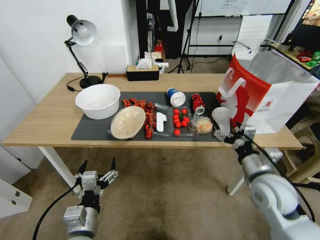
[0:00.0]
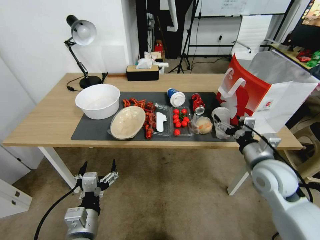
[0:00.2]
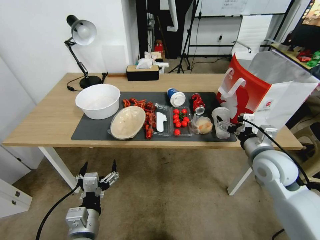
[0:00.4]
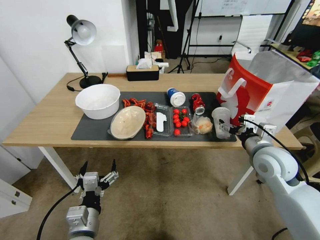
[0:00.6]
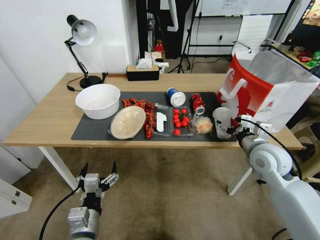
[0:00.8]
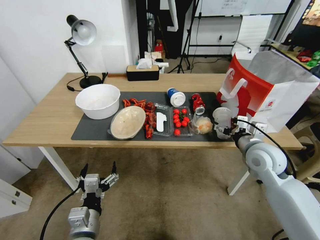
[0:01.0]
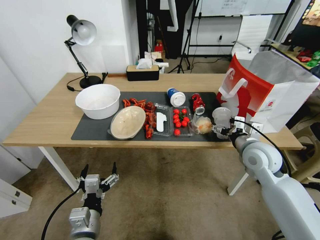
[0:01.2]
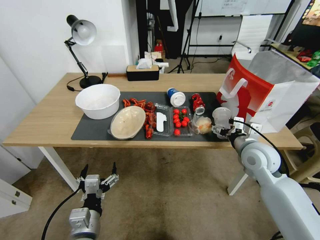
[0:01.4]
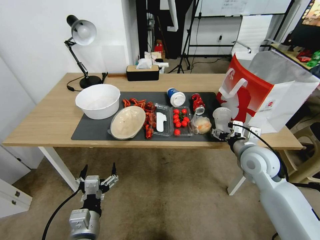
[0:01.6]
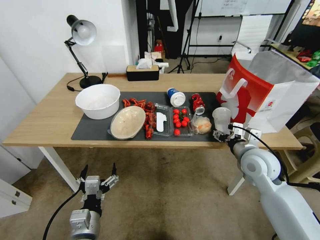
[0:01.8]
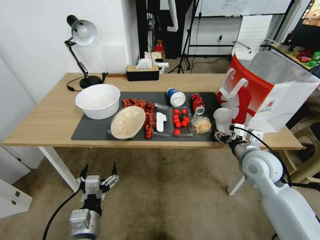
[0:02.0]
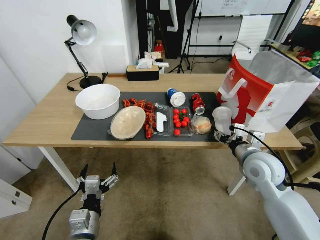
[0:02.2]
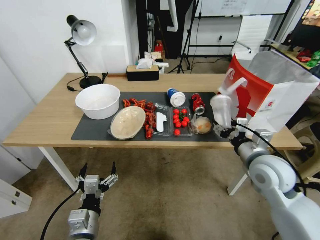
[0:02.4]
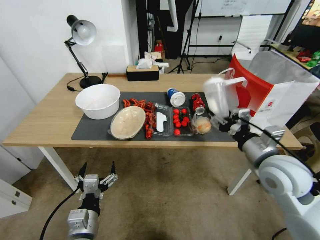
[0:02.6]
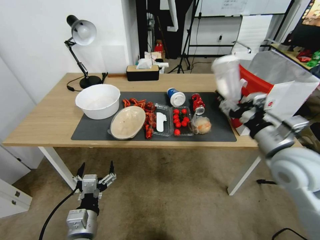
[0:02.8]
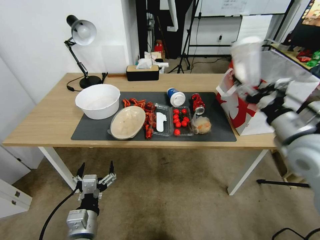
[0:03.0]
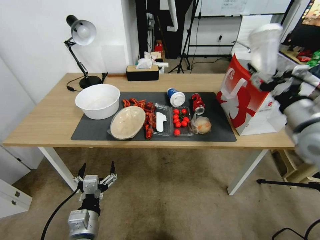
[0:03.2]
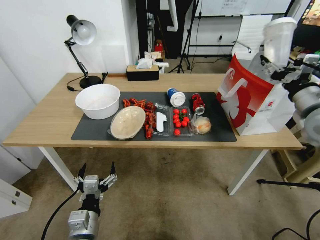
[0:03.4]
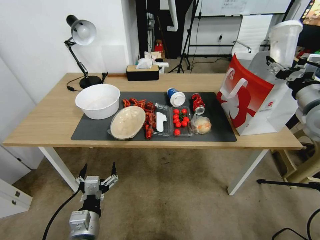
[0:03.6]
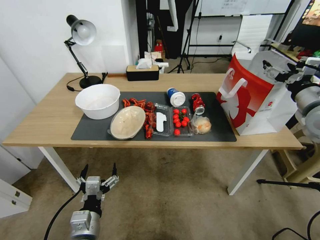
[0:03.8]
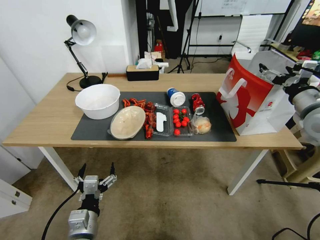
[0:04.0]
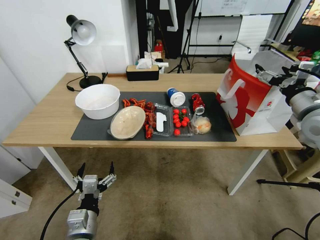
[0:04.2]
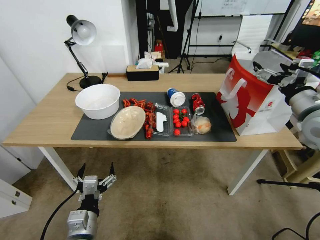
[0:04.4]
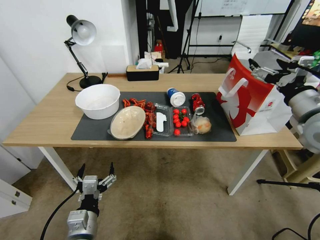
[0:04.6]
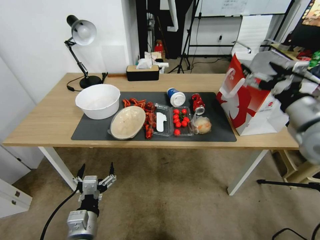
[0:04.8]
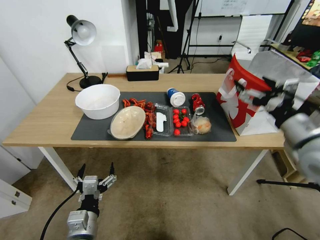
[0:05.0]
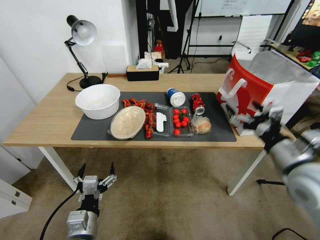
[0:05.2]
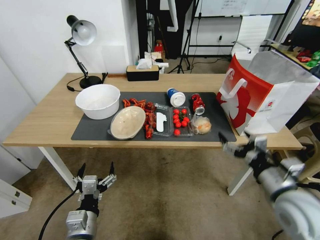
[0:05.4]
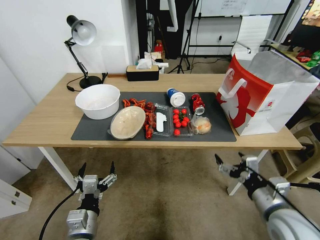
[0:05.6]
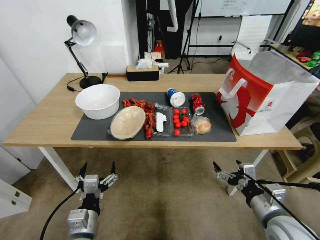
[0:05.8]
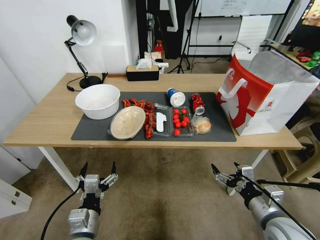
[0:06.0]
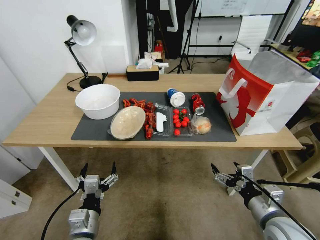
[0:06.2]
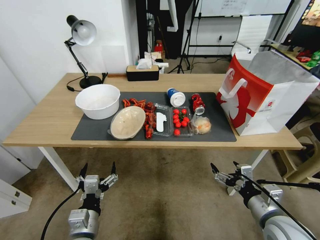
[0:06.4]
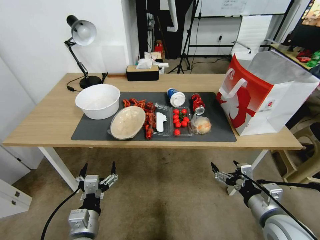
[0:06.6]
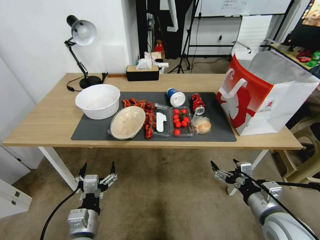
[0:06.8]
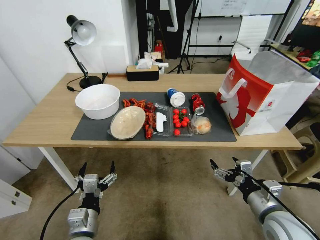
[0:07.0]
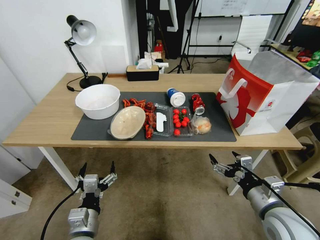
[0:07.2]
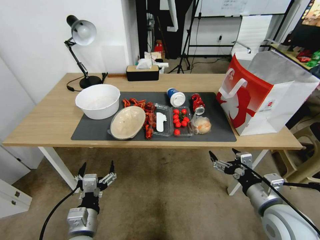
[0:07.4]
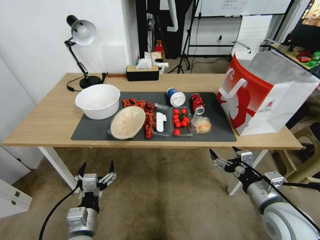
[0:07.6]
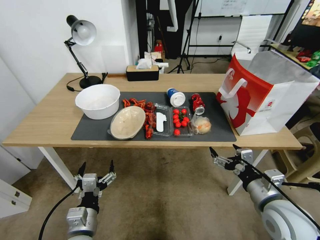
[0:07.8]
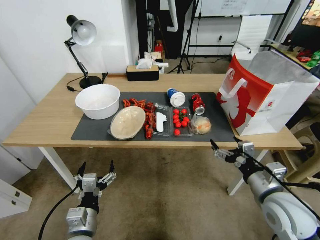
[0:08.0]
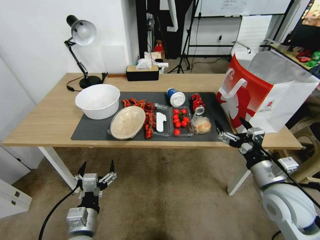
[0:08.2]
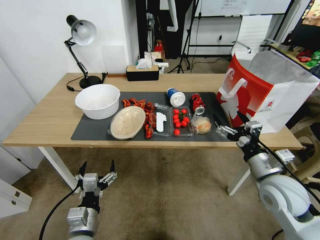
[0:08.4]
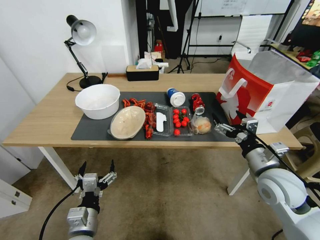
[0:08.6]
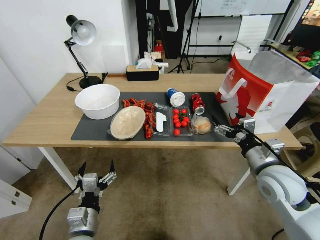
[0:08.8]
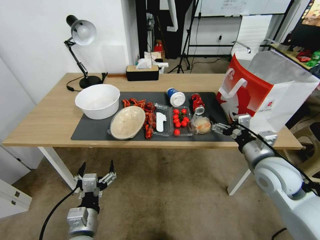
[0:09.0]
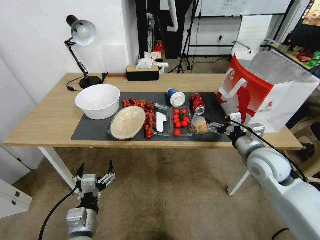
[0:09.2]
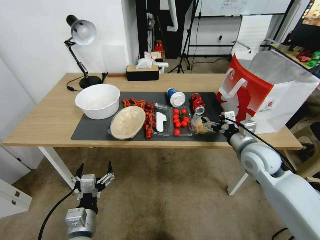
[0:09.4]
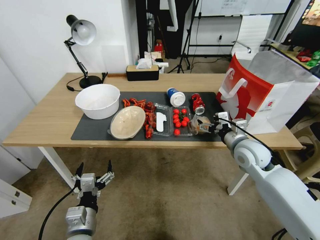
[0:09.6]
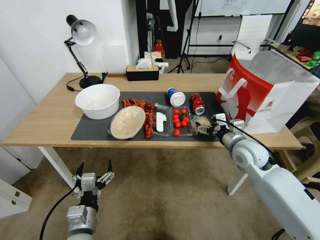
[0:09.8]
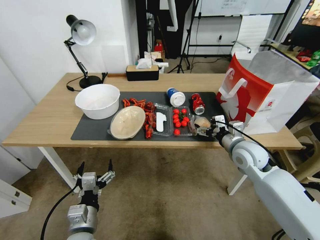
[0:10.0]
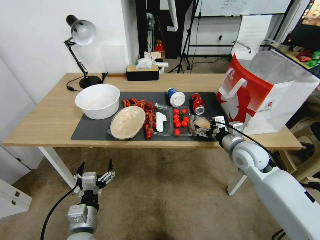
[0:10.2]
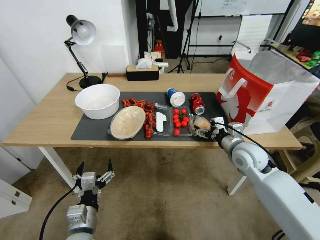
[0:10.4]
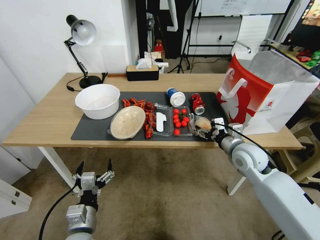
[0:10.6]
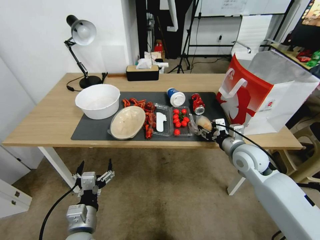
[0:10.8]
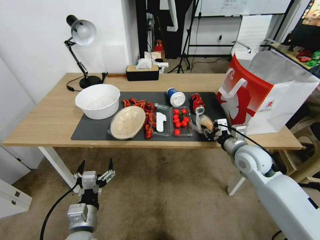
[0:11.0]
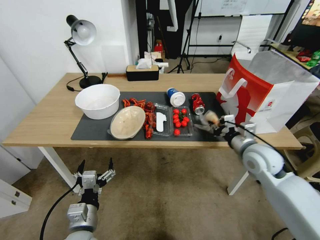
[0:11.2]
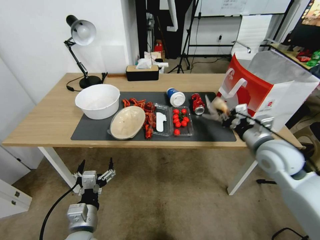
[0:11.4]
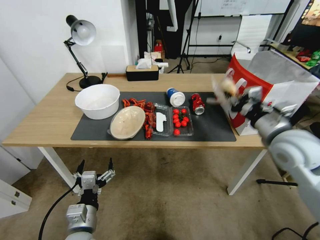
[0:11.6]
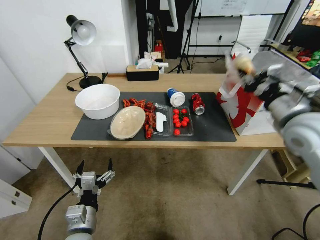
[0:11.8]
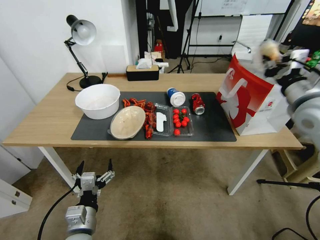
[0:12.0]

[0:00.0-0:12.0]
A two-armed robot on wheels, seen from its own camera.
0:00.0 to 0:01.6: The right gripper shifts about 10 cm forward.
0:01.6 to 0:03.0: The right gripper is displaced upward and backward by about 15 cm.
0:03.0 to 0:04.4: The right gripper heads forward and to the right, covering approximately 10 cm, and opens.
0:04.4 to 0:06.0: The right gripper heads downward, backward and to the left, covering some 30 cm.
0:06.0 to 0:07.6: The grippers make only small movements.
0:07.6 to 0:09.0: The right gripper travels forward by some 10 cm.
0:09.0 to 0:10.4: The right gripper heads forward, covering approximately 5 cm.
0:10.4 to 0:12.0: The right gripper shifts approximately 20 cm upward and to the right, and closes up.

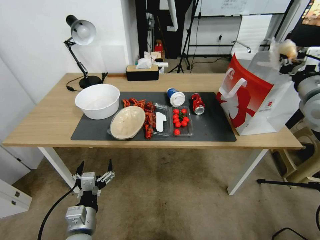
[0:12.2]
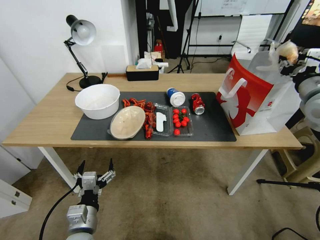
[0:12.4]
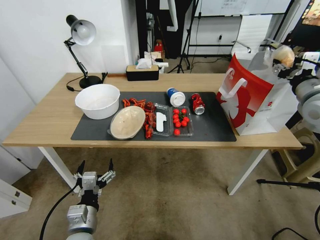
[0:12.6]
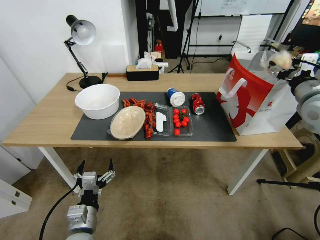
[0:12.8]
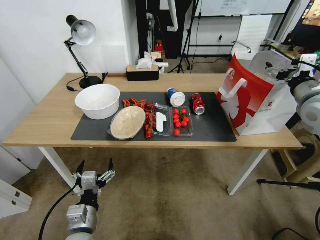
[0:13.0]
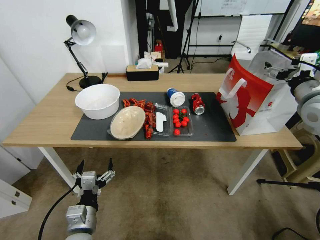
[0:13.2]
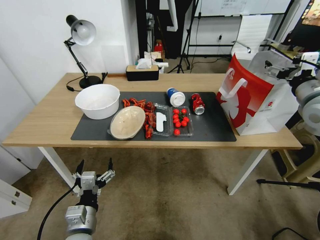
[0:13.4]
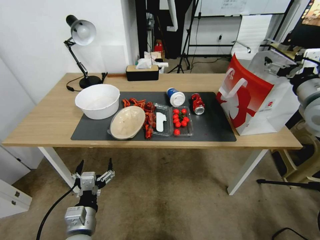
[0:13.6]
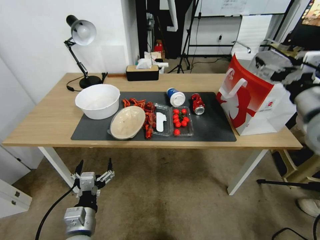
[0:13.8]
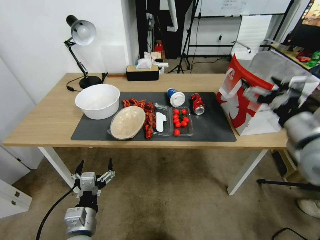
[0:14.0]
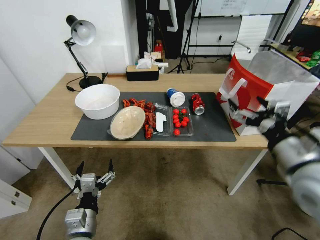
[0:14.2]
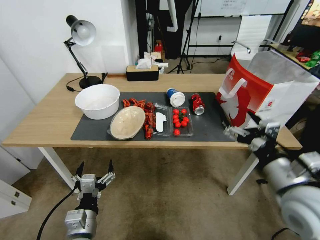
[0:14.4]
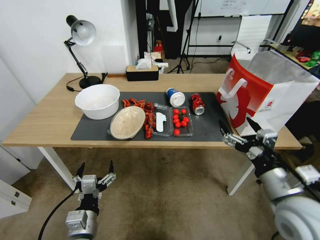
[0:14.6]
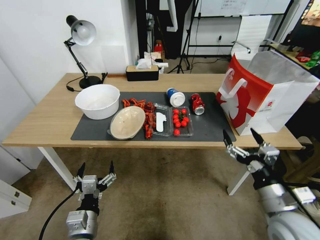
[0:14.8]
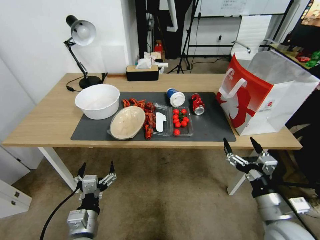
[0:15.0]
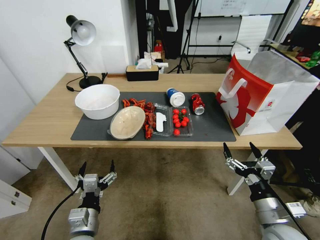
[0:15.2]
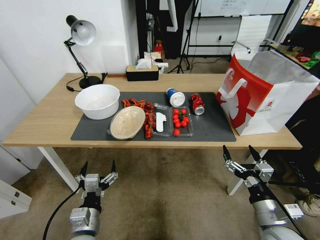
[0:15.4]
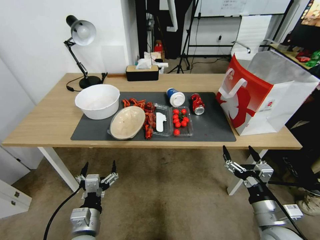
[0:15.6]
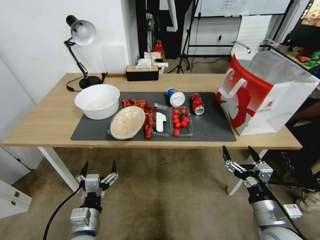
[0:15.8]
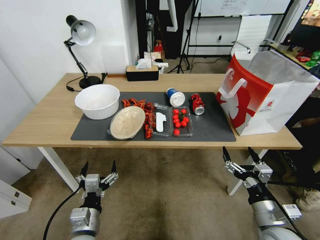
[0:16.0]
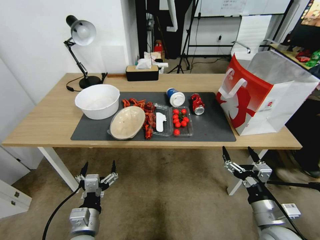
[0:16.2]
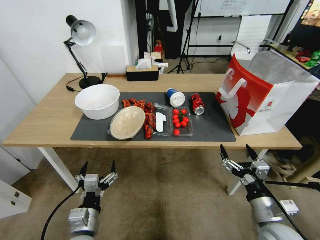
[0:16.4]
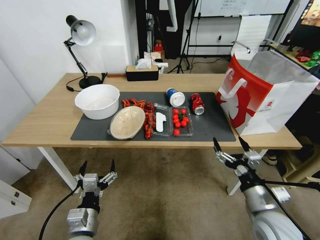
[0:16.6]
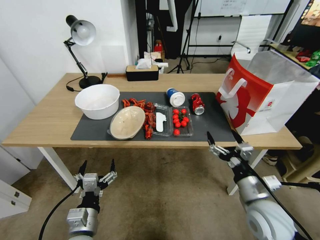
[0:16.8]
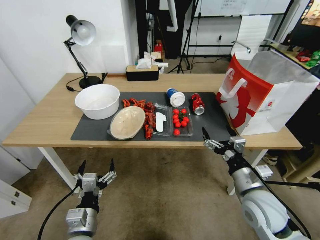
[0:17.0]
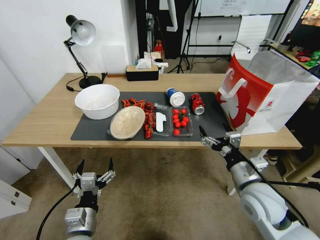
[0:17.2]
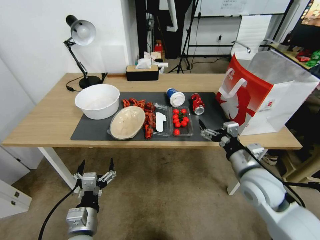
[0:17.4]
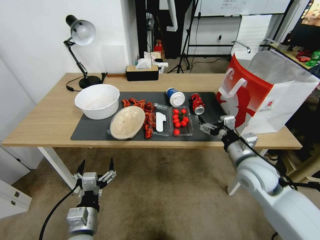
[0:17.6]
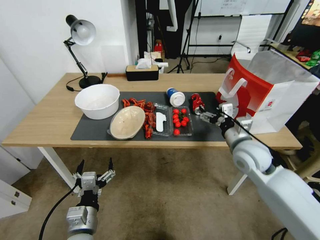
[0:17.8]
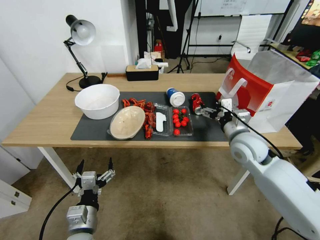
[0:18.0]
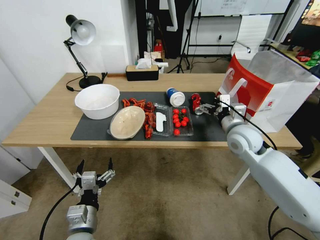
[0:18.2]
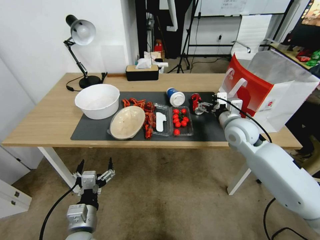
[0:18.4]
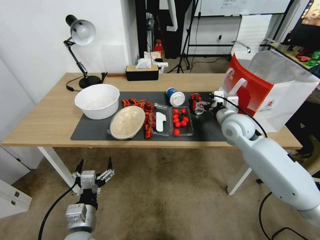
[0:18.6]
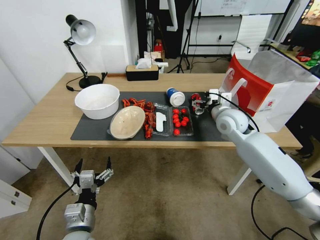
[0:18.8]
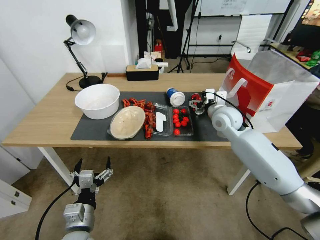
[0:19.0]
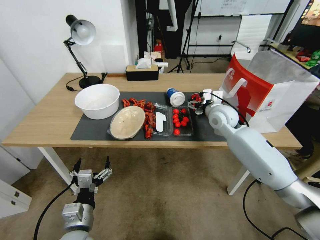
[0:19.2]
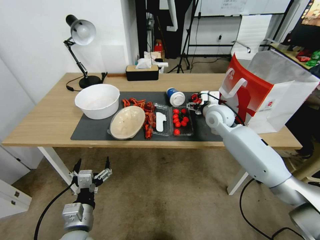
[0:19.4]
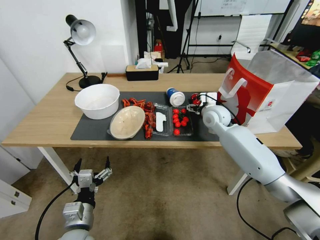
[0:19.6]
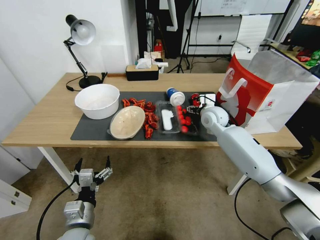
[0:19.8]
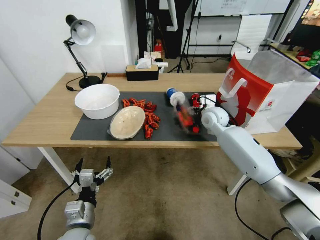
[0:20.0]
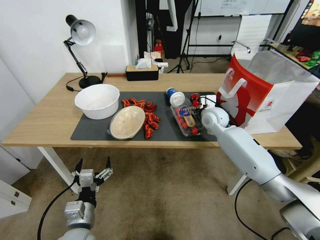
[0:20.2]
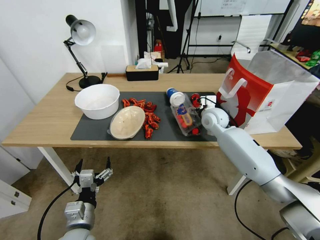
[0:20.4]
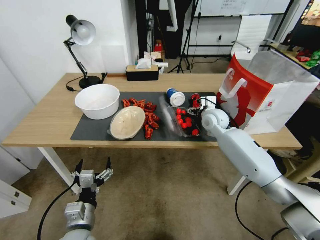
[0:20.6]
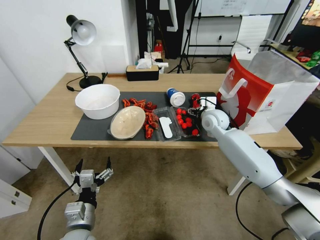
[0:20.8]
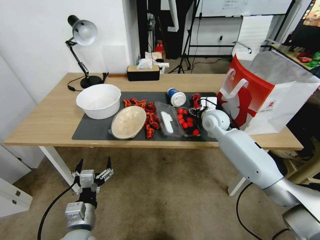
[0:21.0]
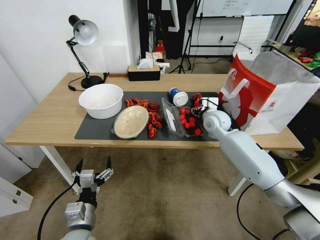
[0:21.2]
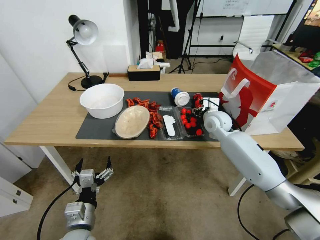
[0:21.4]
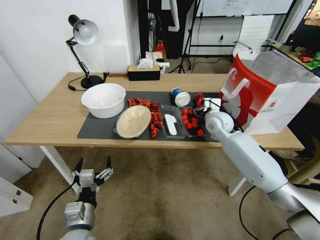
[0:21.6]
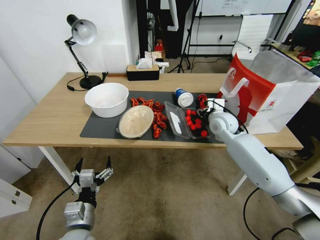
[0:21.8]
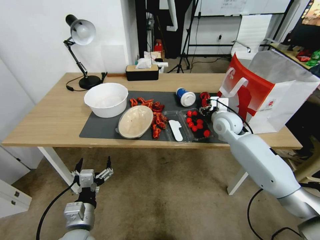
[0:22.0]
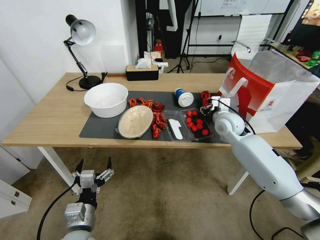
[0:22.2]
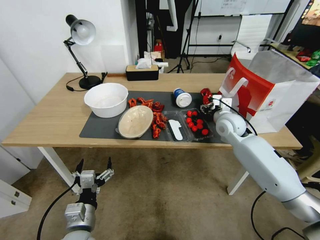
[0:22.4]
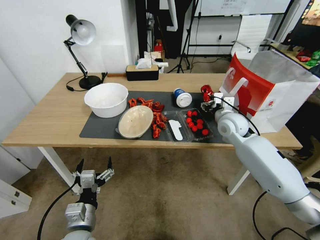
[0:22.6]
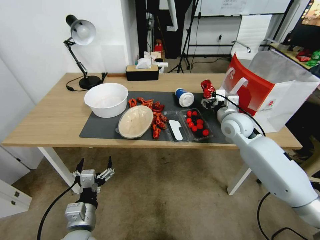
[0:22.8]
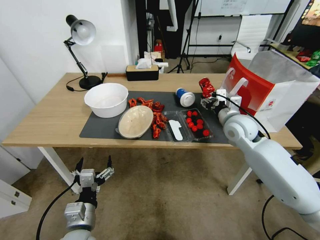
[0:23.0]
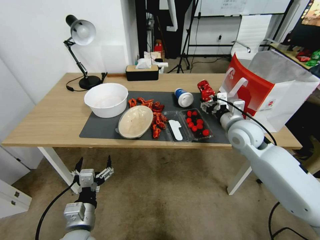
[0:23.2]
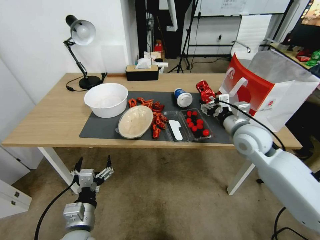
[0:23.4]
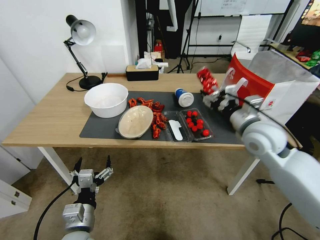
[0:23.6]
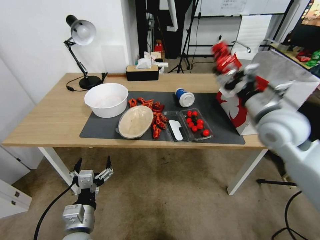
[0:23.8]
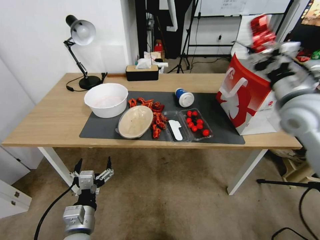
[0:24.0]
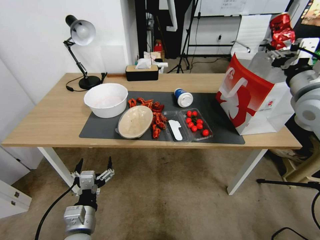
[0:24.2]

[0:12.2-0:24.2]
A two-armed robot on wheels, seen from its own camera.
0:12.2 to 0:13.8: The right gripper travels backward by about 5 cm, and opens.
0:13.8 to 0:15.2: The right gripper heads downward and backward, covering roughly 30 cm.
0:15.2 to 0:16.6: The grippers make only small movements.
0:16.6 to 0:18.2: The right gripper shifts roughly 25 cm forward and upward.
0:18.2 to 0:19.8: The right gripper travels forward and to the left by about 15 cm.
0:19.8 to 0:21.2: The right gripper closes up.
0:21.2 to 0:22.6: The right gripper ends up roughly 5 cm from where it was.
0:22.6 to 0:24.2: The right gripper travels upward, to the right and backward by roughly 20 cm.
